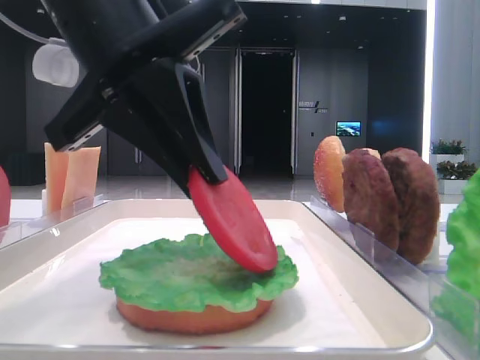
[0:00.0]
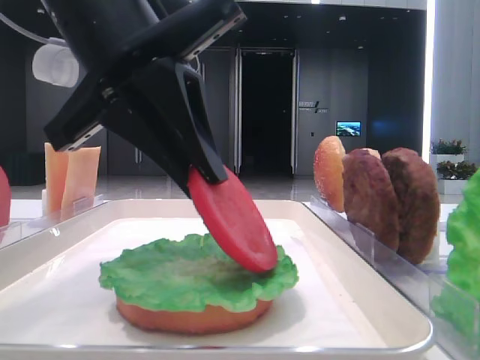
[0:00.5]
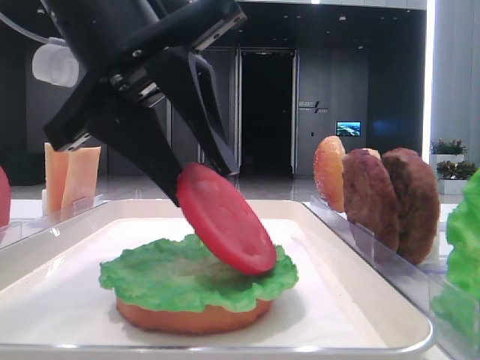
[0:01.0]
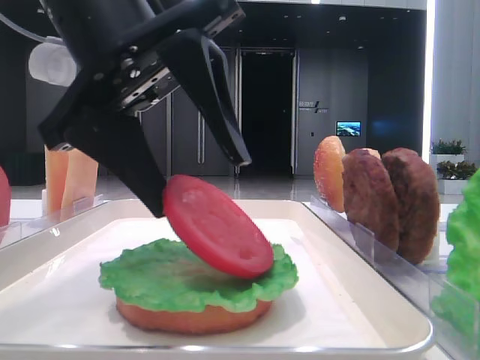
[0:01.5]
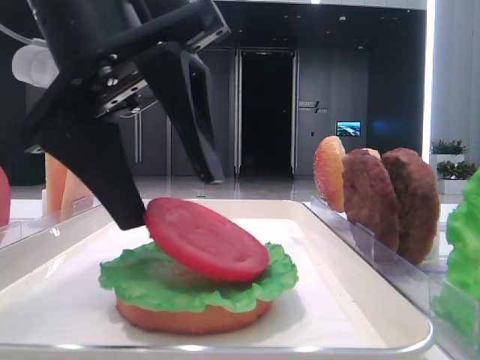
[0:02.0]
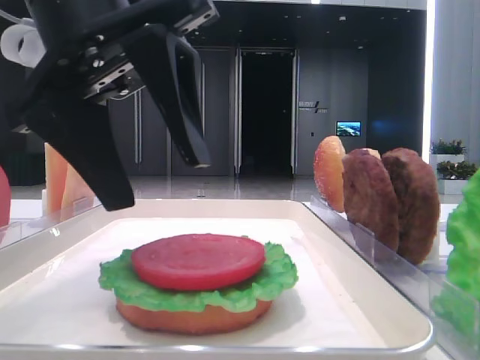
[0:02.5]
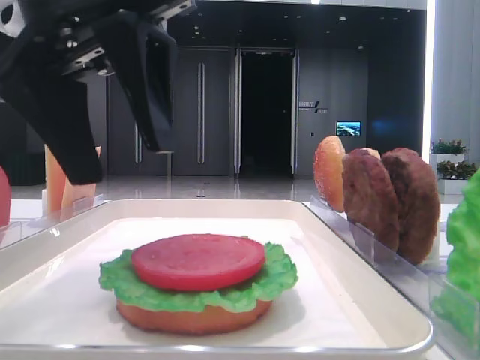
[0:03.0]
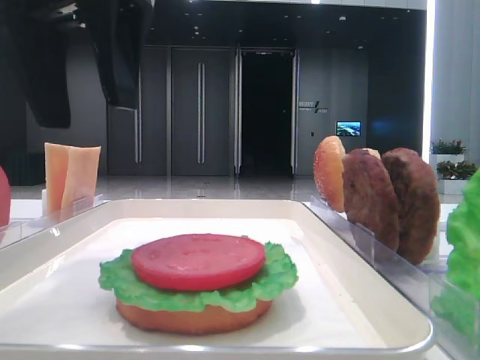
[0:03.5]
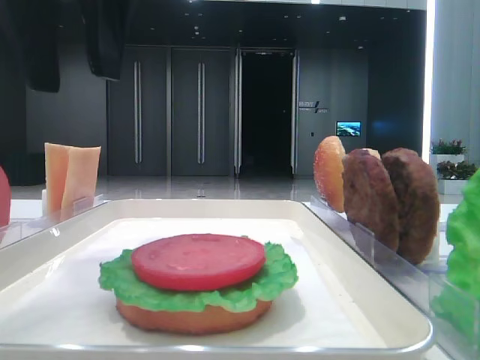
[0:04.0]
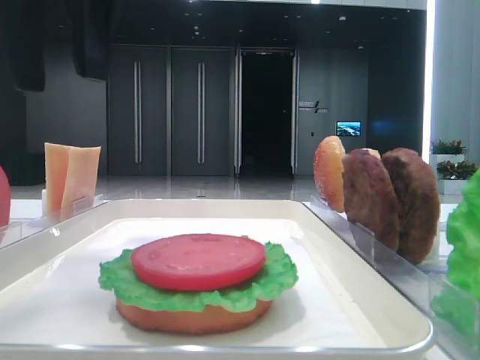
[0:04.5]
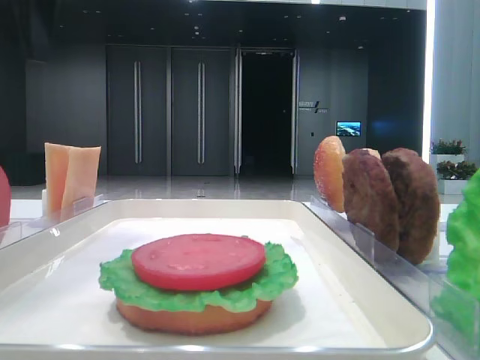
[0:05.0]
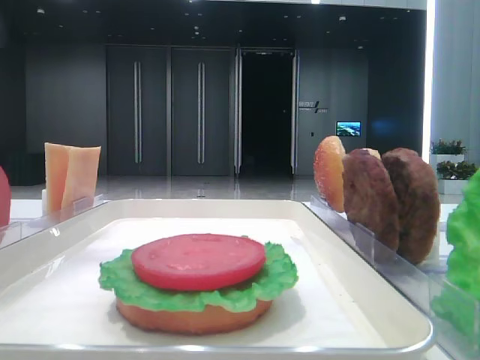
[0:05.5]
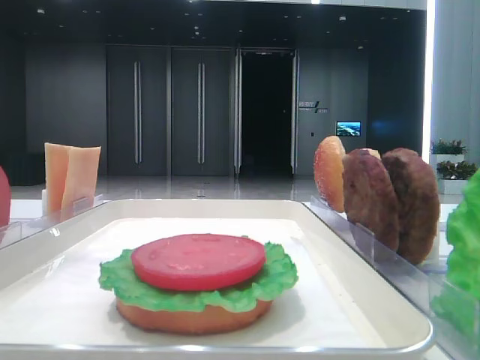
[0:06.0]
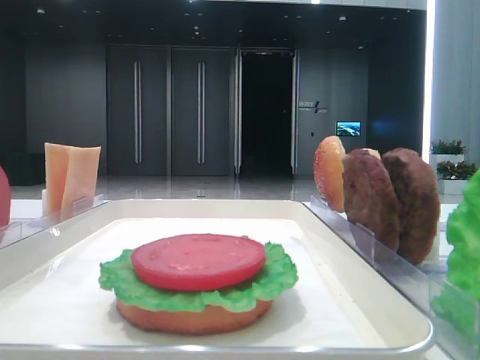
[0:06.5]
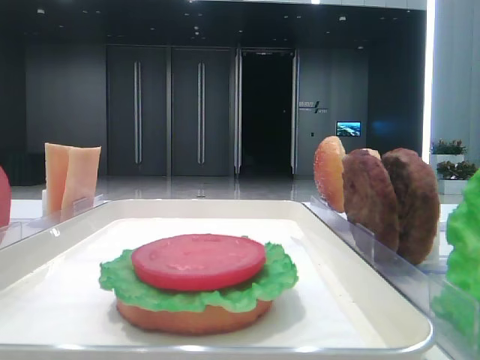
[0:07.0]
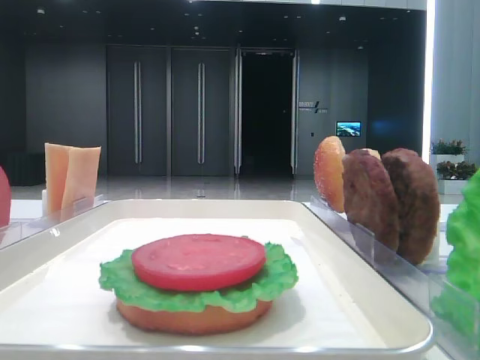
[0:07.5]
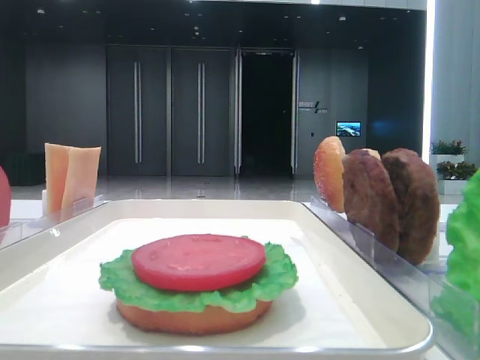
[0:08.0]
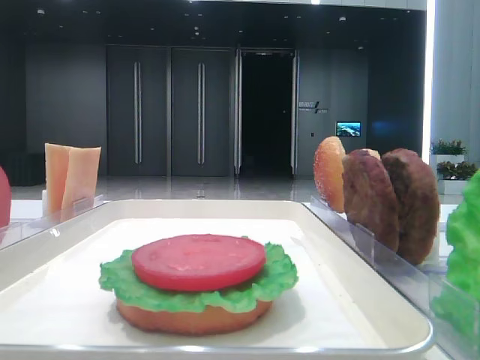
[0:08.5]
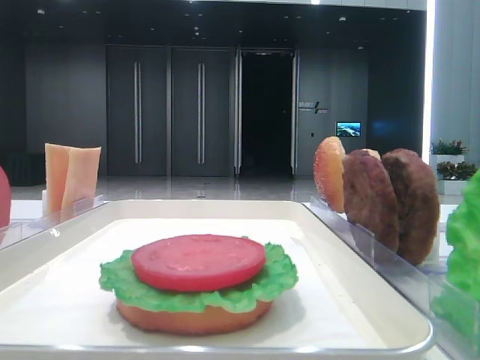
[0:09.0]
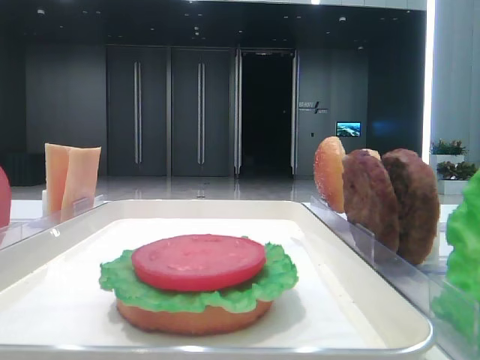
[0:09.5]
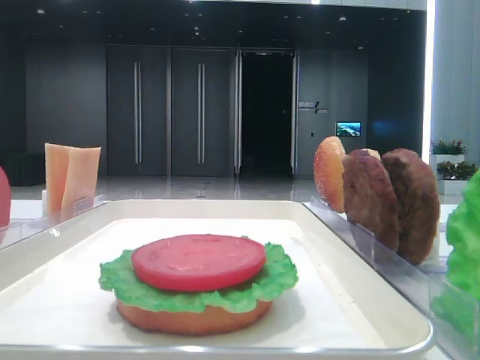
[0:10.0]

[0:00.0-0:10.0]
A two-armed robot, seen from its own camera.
Step, 0:00.0 to 0:02.0: Place the tomato slice on the lettuce leaf with the left hand.
0:00.0 to 0:02.0: The left gripper opens its fingers.
0:02.0 to 0:04.0: The left gripper moves upward, approximately 10 cm.
0:04.0 to 0:06.0: The left gripper travels to the left and upward by about 15 cm.

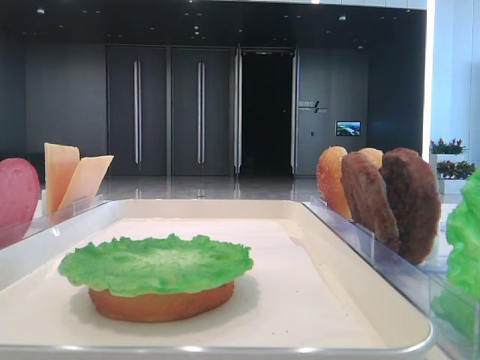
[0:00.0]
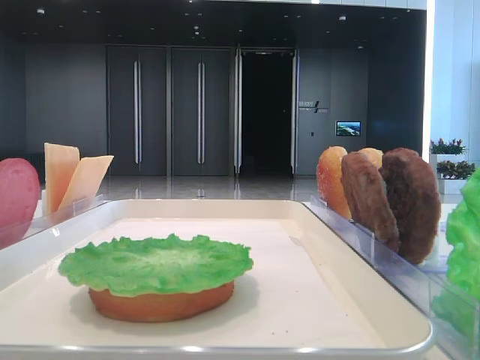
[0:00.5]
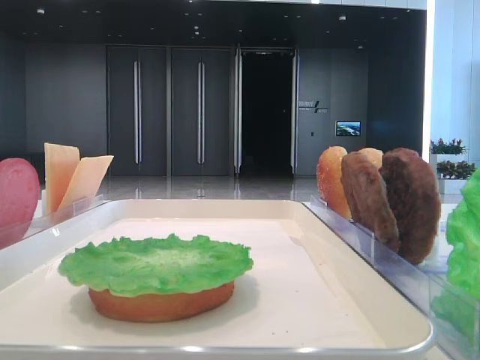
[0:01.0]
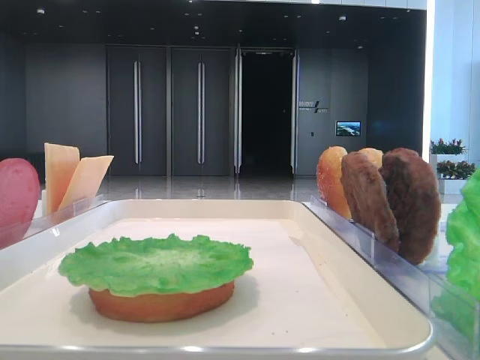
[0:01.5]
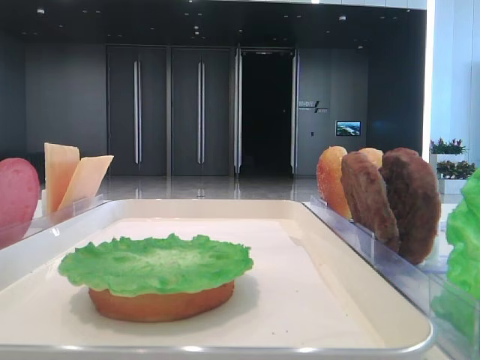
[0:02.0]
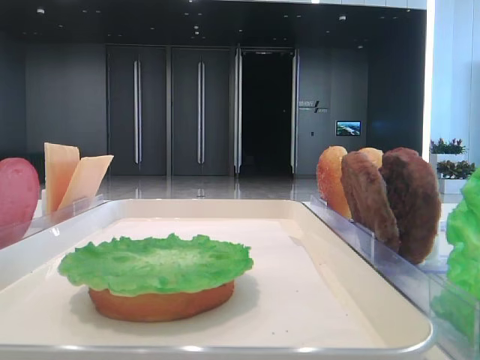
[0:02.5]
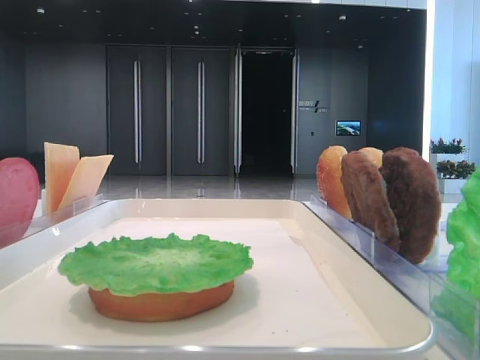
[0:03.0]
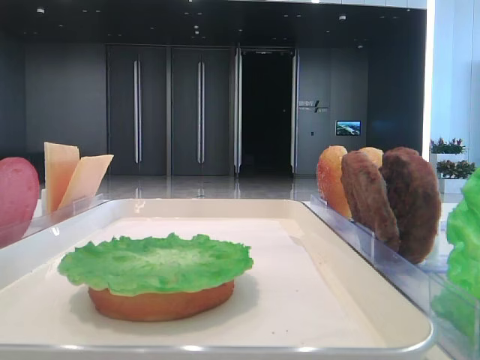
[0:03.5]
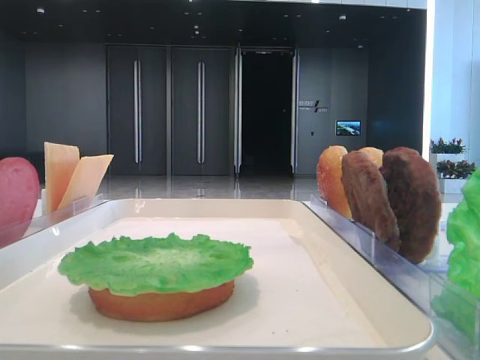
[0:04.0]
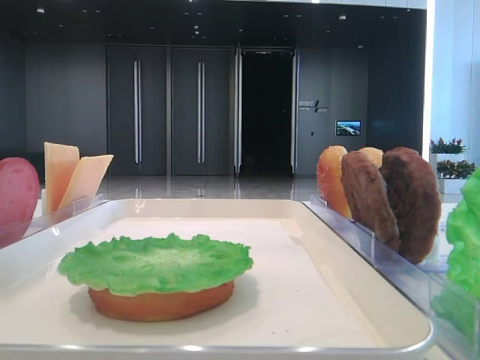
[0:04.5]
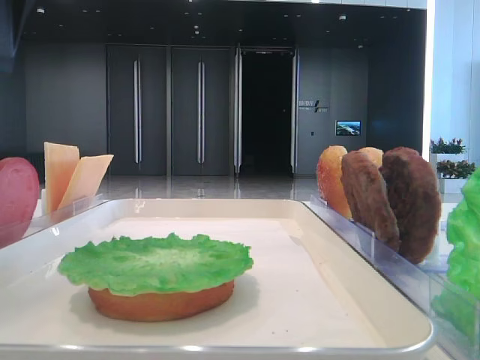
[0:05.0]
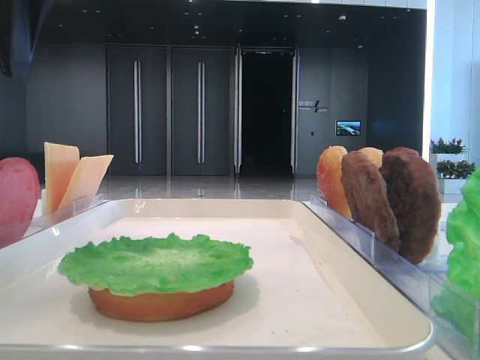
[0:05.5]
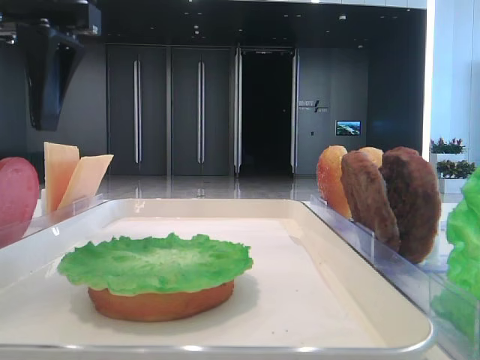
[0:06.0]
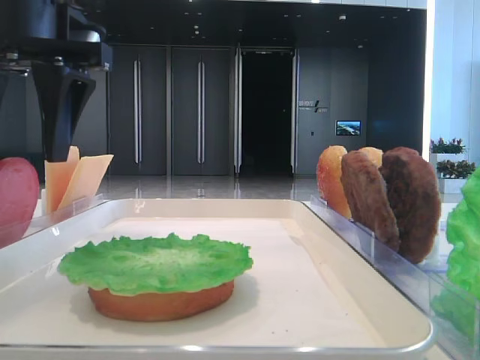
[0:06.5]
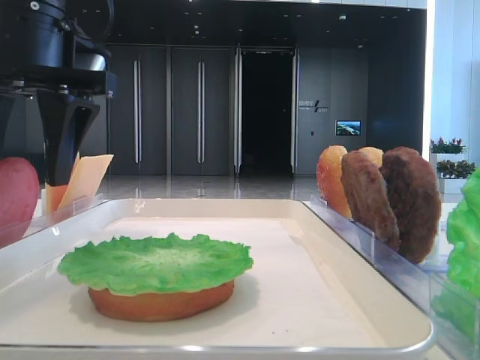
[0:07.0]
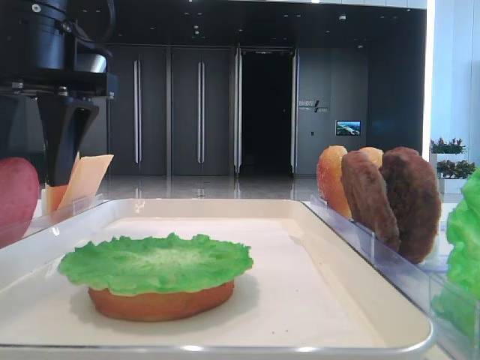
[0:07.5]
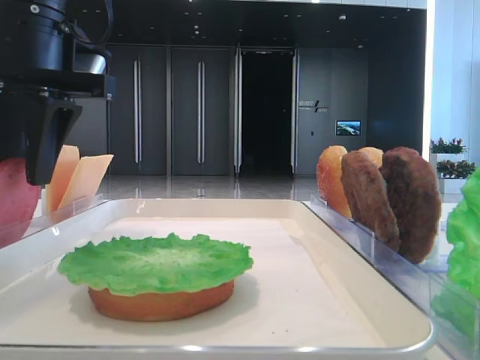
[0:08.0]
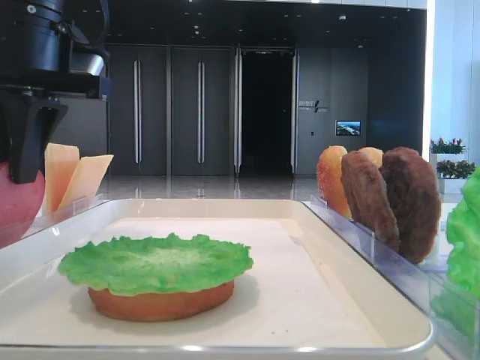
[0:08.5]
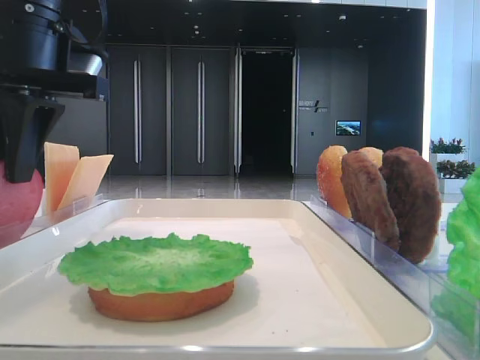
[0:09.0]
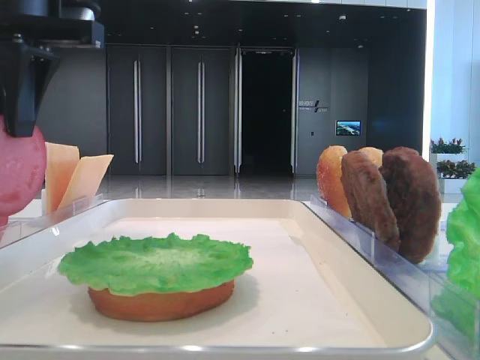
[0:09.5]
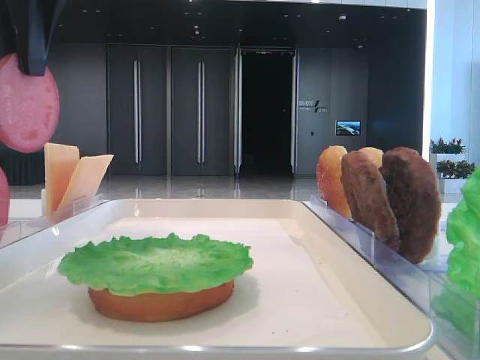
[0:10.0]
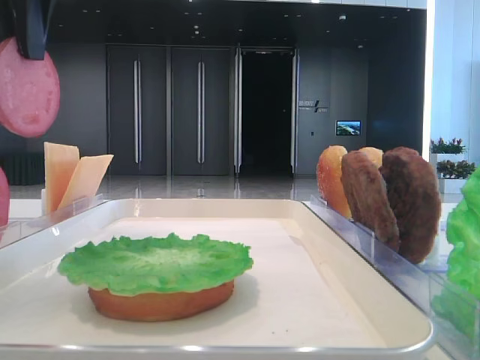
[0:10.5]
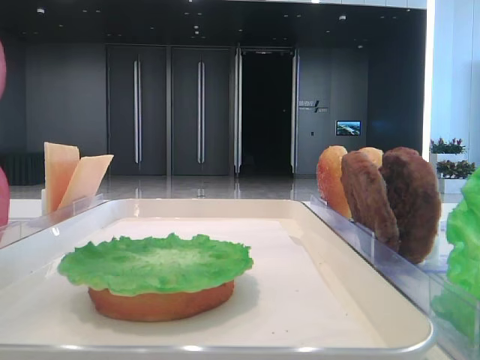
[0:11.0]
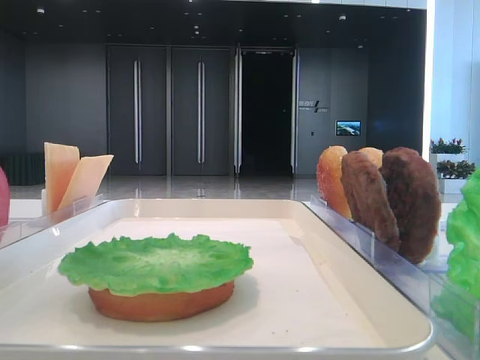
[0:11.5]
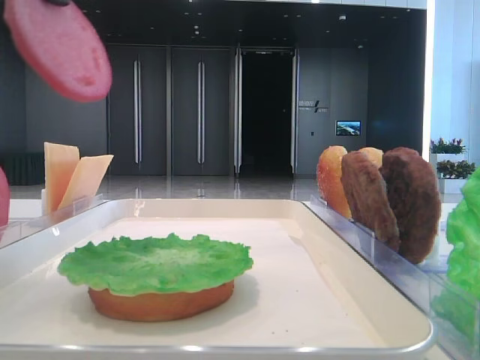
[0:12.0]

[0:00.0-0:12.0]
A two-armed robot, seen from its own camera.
Step, 0:00.0 to 0:08.0: Pick up the tomato slice with the left hand.
0:04.0 to 0:06.0: The left gripper moves to the right, approximately 15 cm.
0:06.0 to 0:08.0: The left gripper closes its fingers.
0:08.0 to 0:10.0: The left gripper heads upward, covering some 10 cm, and closes.
0:10.0 to 0:12.0: The left gripper moves backward, roughly 5 cm.

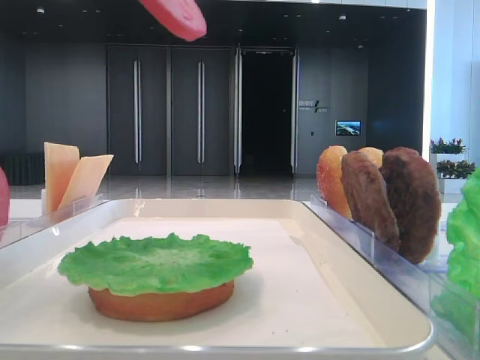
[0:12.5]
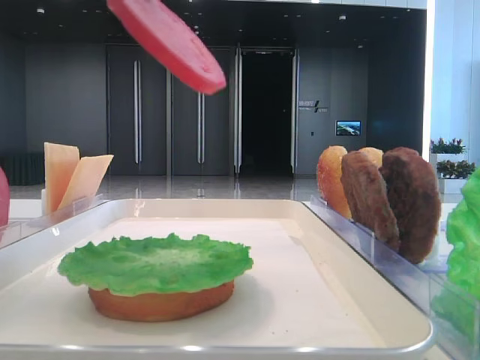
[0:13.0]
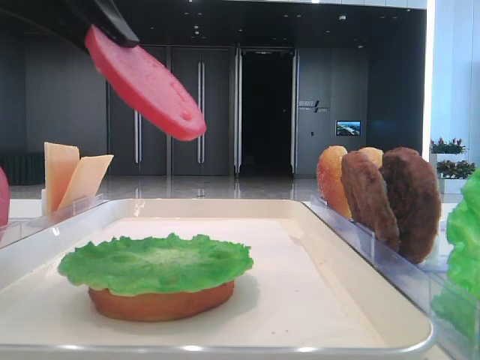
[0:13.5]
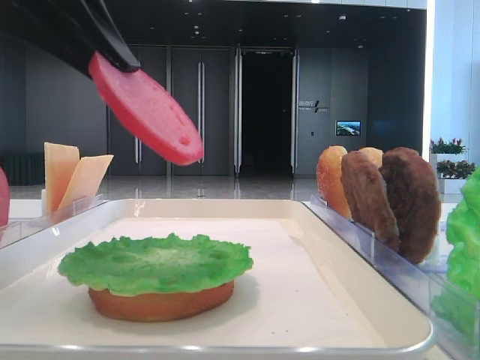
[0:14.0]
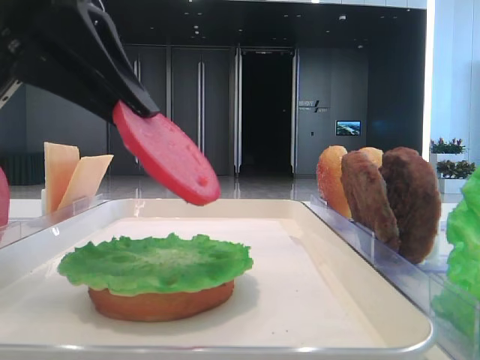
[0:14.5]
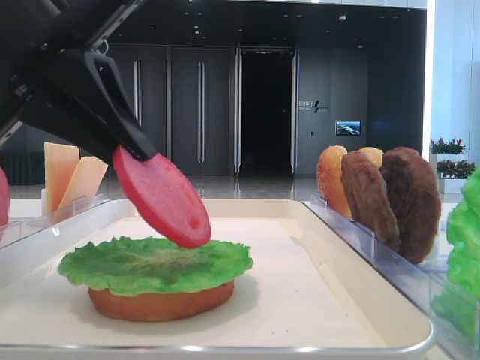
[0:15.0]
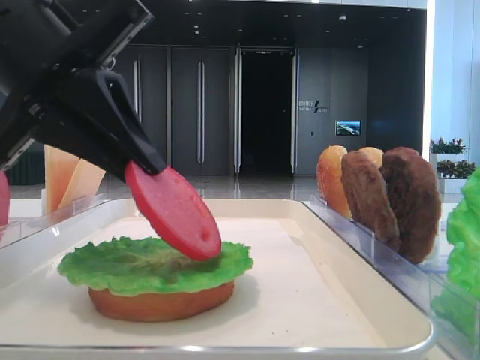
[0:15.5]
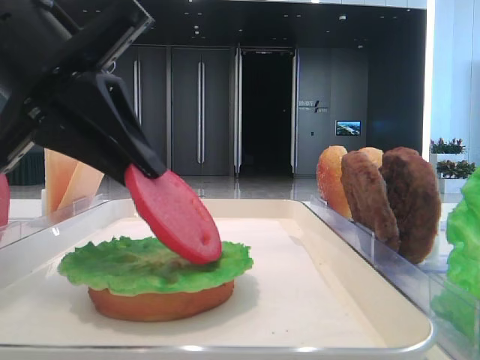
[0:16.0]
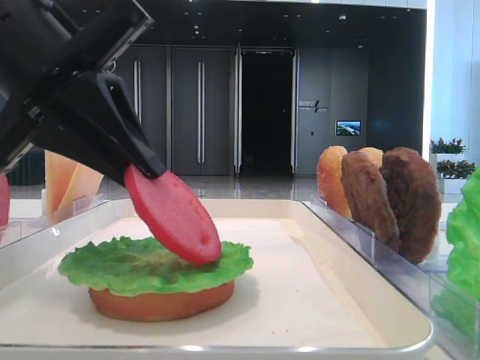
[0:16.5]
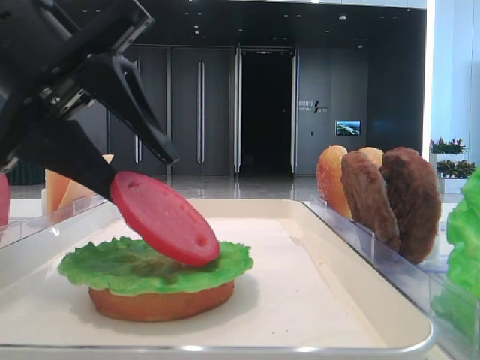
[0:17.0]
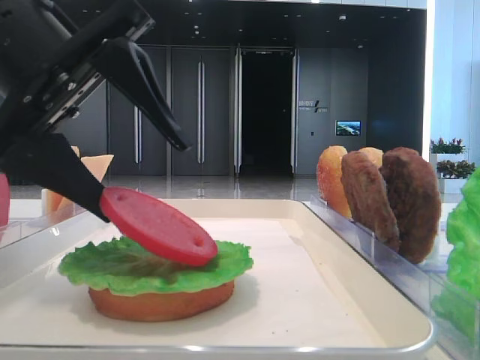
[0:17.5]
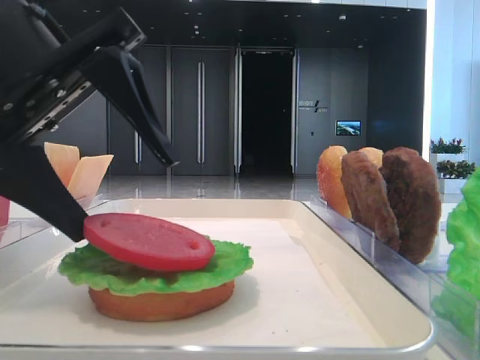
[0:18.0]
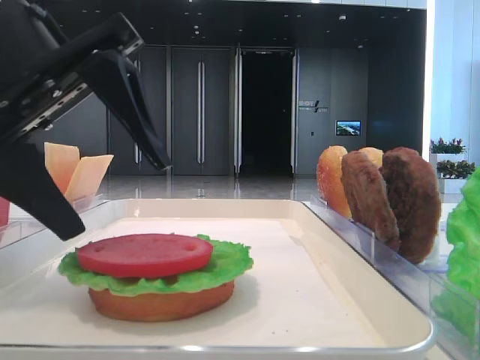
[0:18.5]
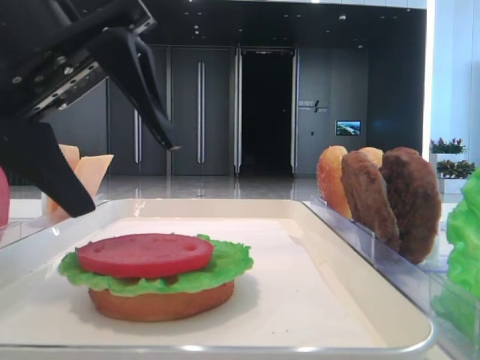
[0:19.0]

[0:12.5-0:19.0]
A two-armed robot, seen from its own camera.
Step, 0:12.5 to 0:18.0: Place the tomato slice on the lettuce leaf with the left hand.
0:12.5 to 0:14.5: The left gripper is displaced downward by approximately 10 cm.
0:14.5 to 0:17.0: The left gripper opens.
0:17.0 to 0:19.0: The left gripper opens its fingers.
